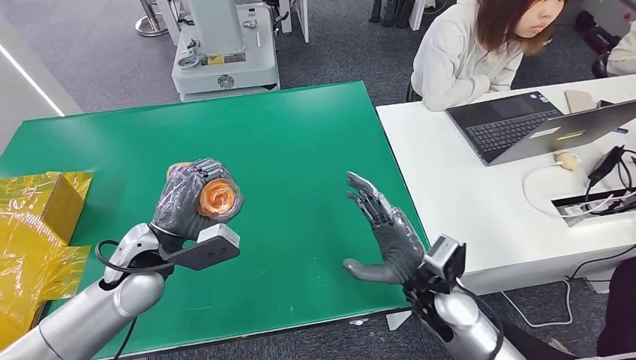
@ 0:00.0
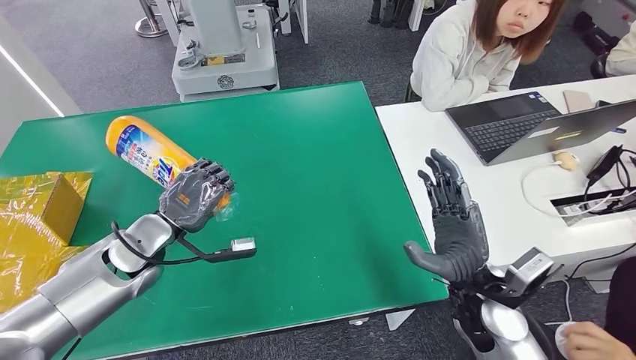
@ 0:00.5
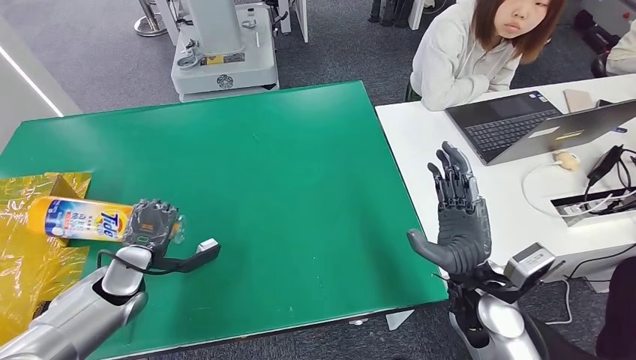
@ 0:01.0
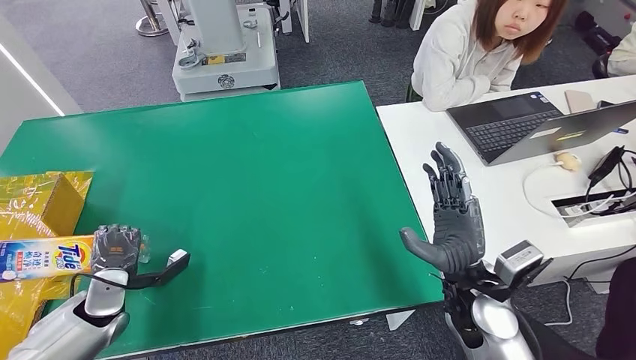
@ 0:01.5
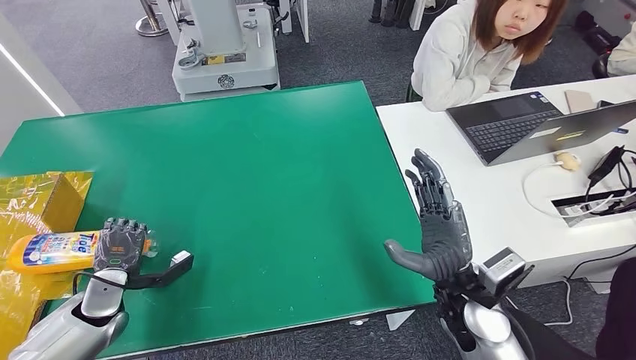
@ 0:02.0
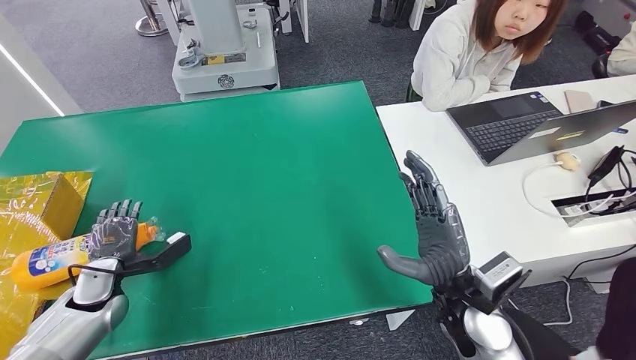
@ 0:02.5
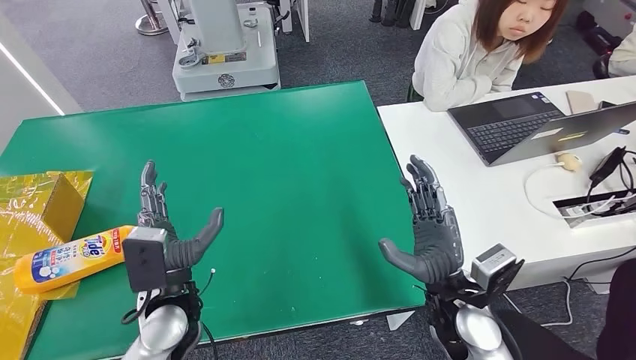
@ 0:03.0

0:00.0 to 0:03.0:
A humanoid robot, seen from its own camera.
Step, 0:00.0 to 0:03.0: Turn the bottle to the front side.
0:00.0 to 0:01.5: The left hand travels downward and to the left by about 20 cm. Meanwhile the right hand shifts by about 5 cm.
0:01.5 to 0:03.0: The left hand shifts about 15 cm to the right.
